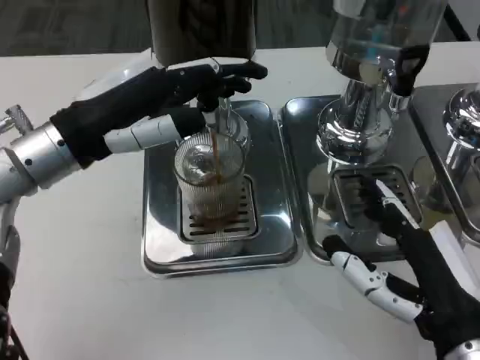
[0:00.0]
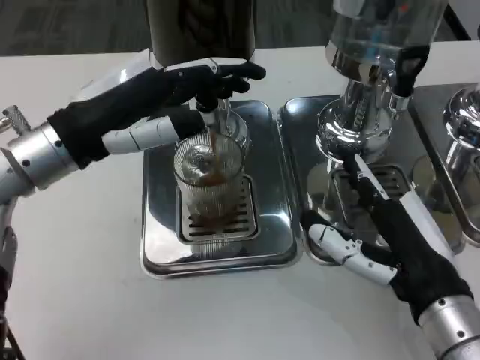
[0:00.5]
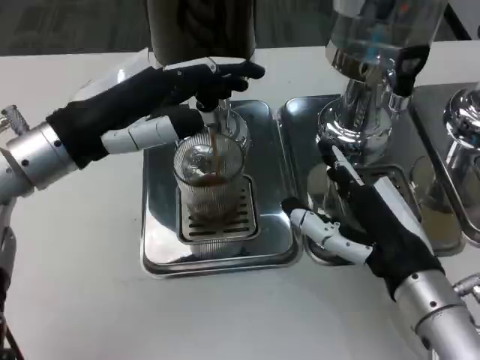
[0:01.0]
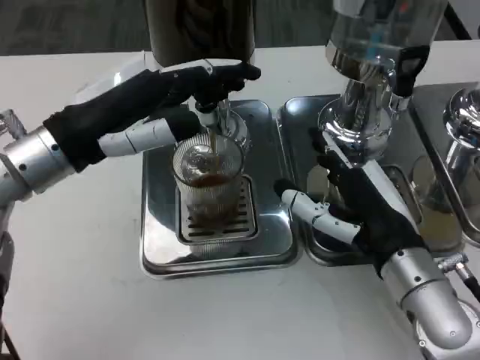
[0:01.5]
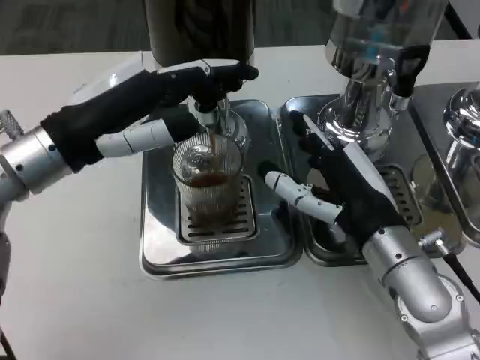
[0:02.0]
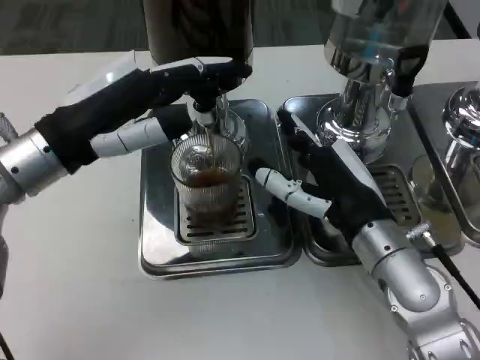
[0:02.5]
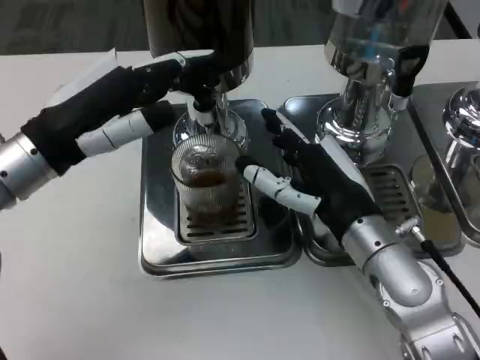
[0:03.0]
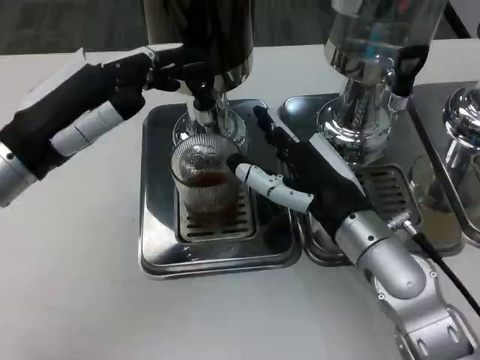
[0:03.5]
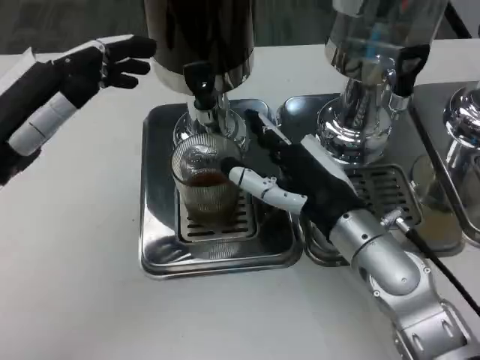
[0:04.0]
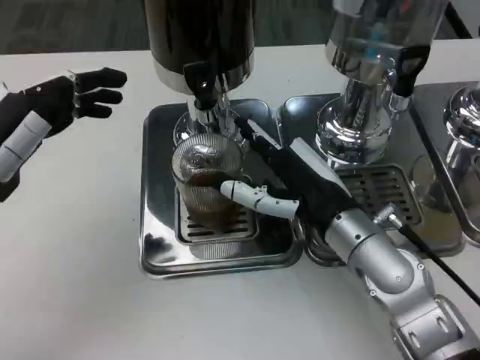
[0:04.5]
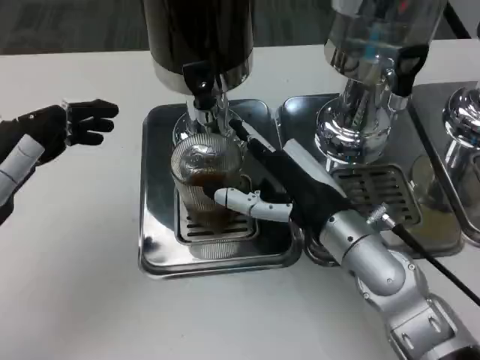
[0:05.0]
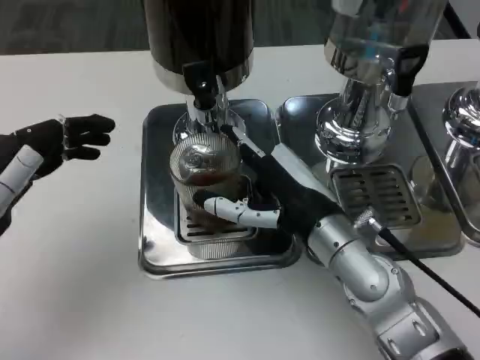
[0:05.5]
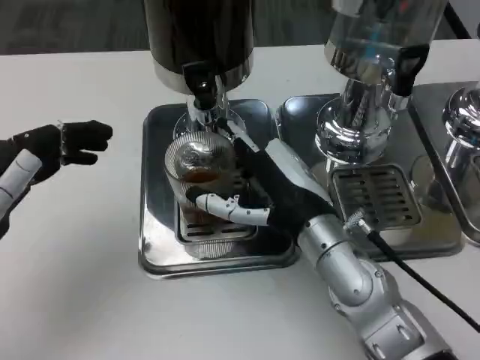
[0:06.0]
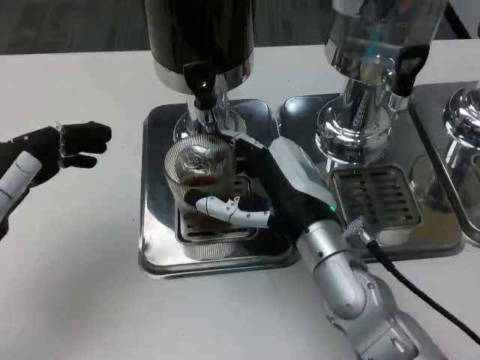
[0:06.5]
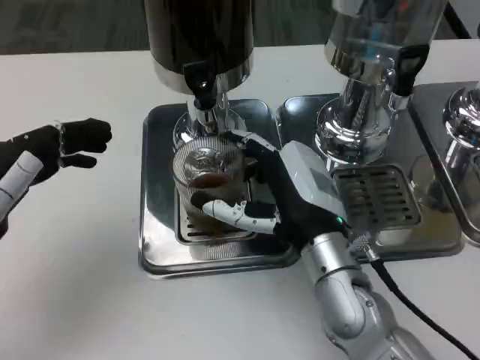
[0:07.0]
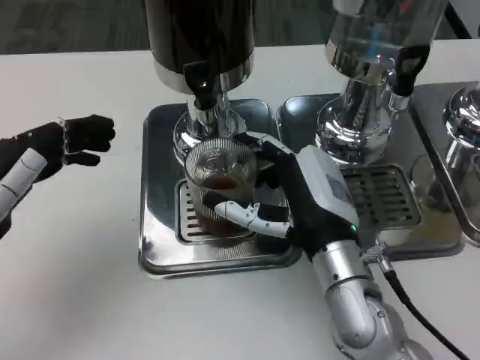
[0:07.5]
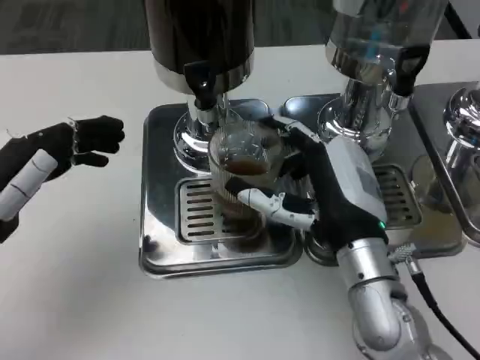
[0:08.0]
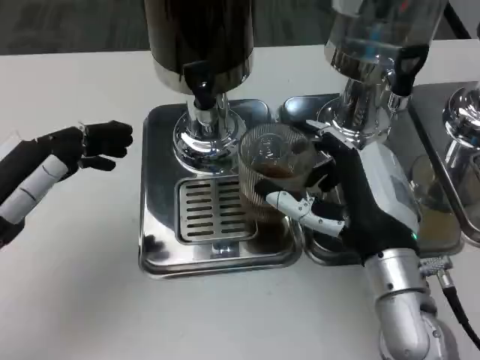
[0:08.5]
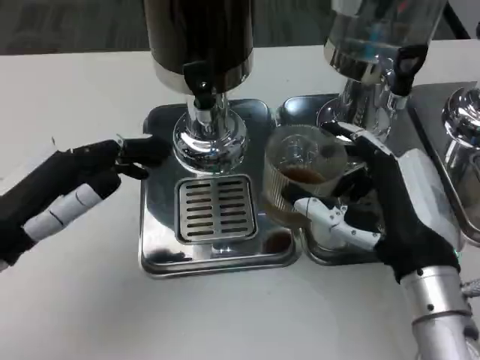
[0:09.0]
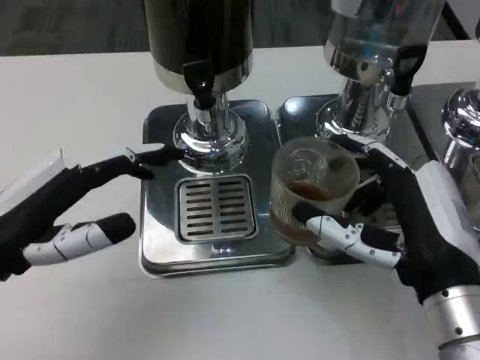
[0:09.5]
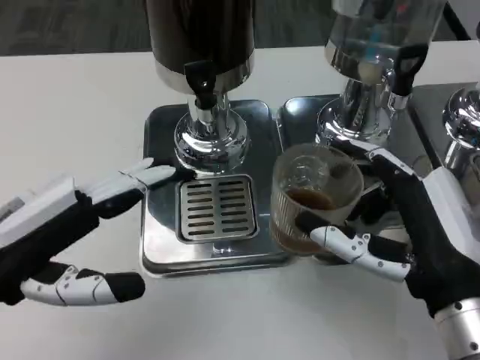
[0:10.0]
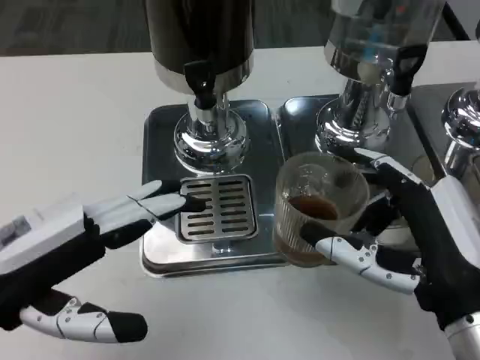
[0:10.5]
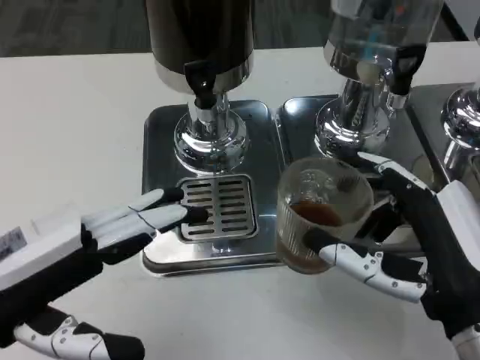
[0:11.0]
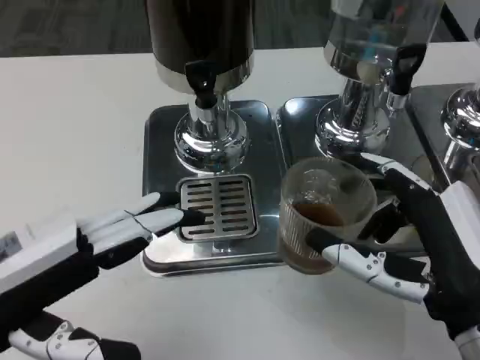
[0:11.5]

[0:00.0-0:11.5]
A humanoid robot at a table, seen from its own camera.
Task of the whole recording: Grasp the cup under the faucet to collect the drink, then remove the cup.
0:00.0 to 0:02.0: The right hand moves forward, some 10 cm.
0:02.0 to 0:04.0: The left hand moves to the left, approximately 5 cm.
0:04.0 to 0:06.0: The left hand ends up roughly 5 cm from where it was.
0:06.0 to 0:07.5: The hands make only small movements.
0:07.5 to 0:09.5: The right hand is displaced backward and to the right by roughly 10 cm.

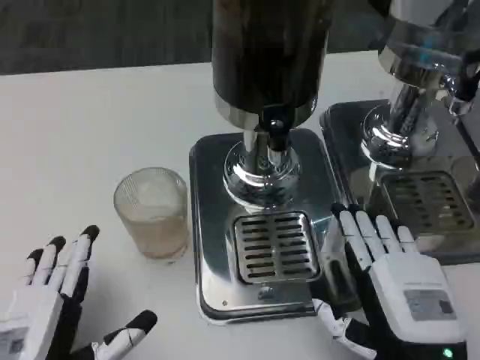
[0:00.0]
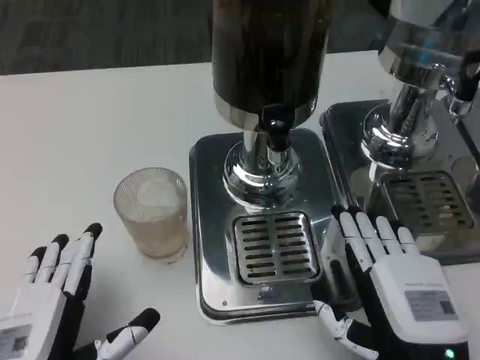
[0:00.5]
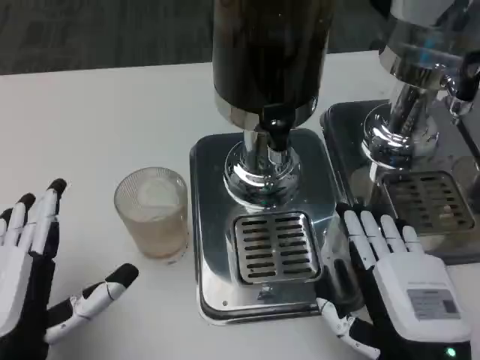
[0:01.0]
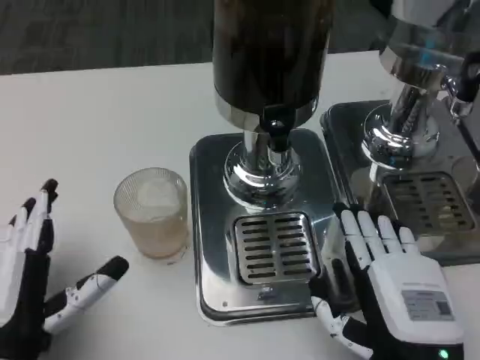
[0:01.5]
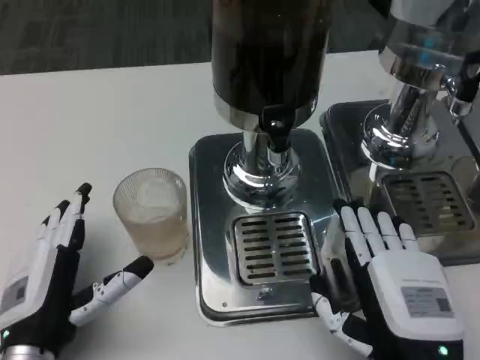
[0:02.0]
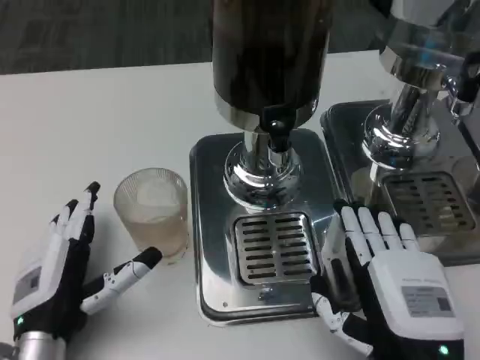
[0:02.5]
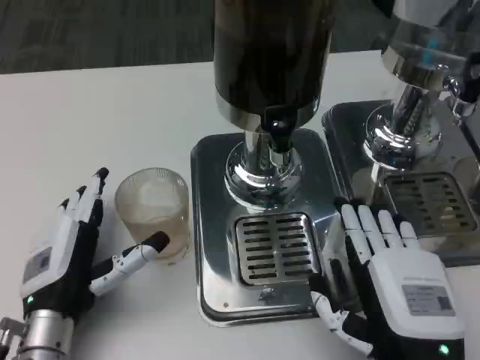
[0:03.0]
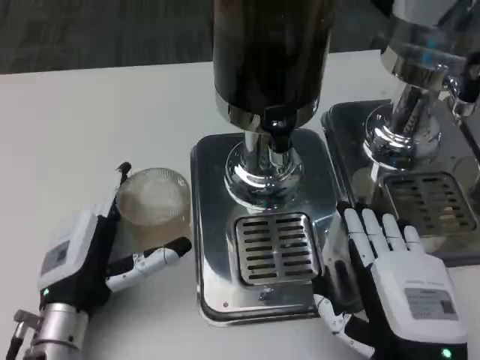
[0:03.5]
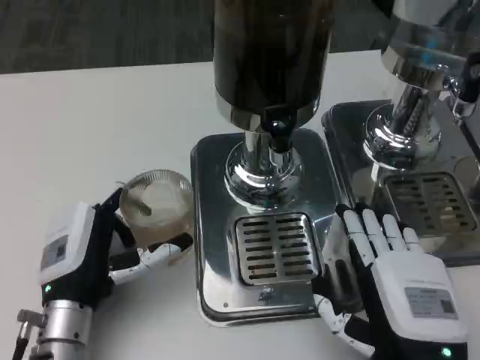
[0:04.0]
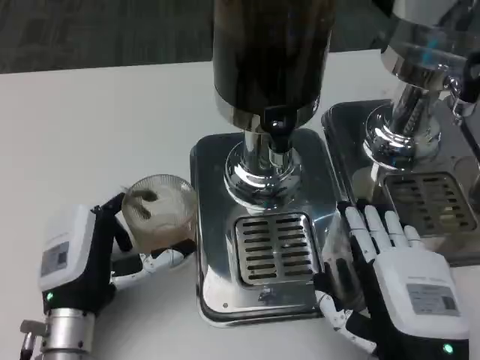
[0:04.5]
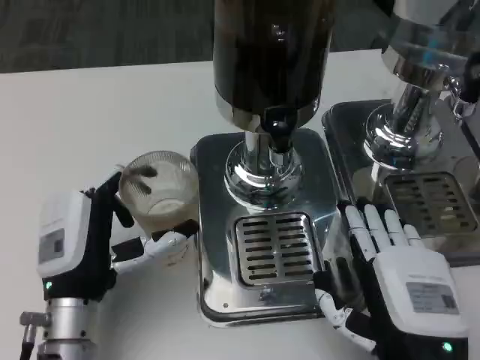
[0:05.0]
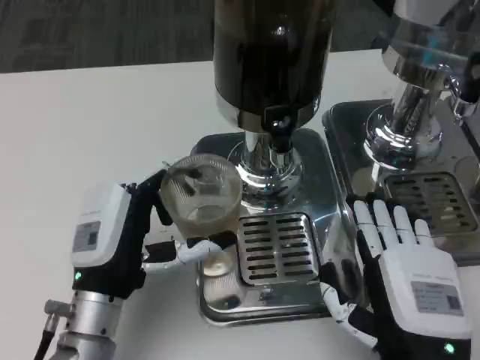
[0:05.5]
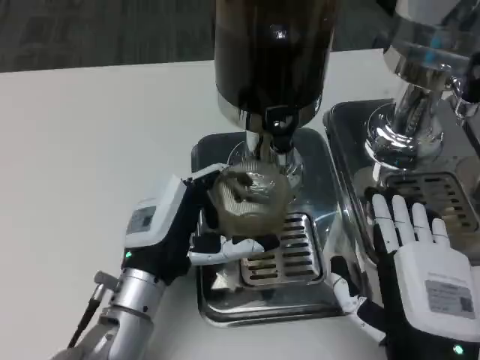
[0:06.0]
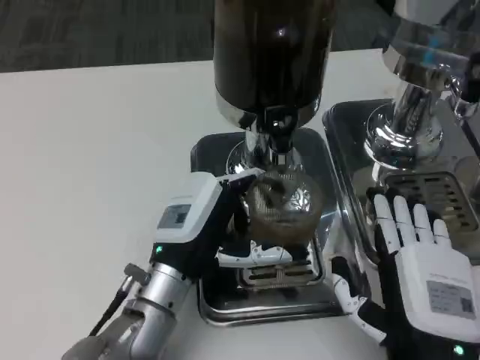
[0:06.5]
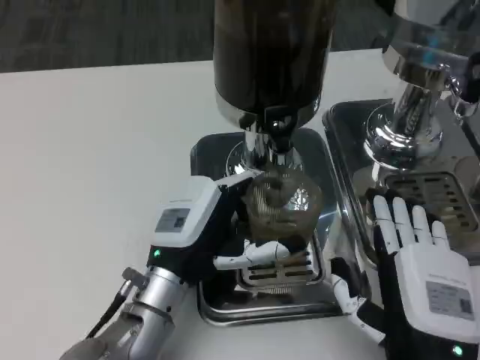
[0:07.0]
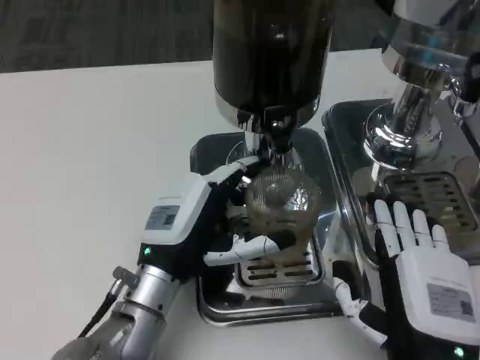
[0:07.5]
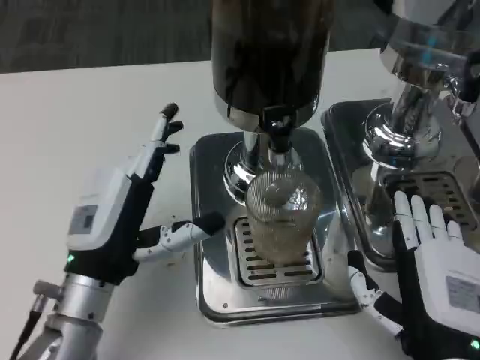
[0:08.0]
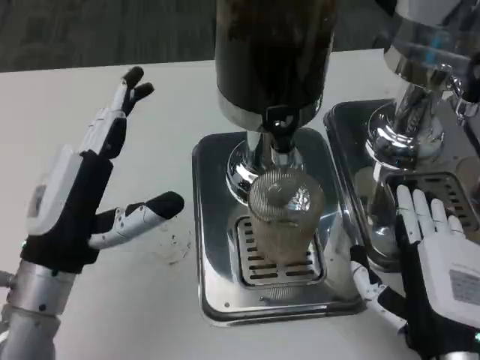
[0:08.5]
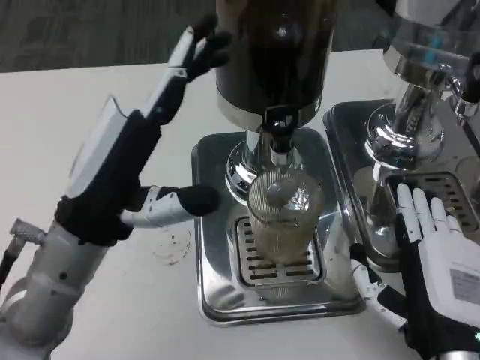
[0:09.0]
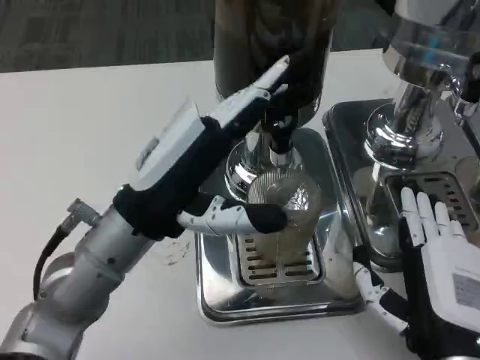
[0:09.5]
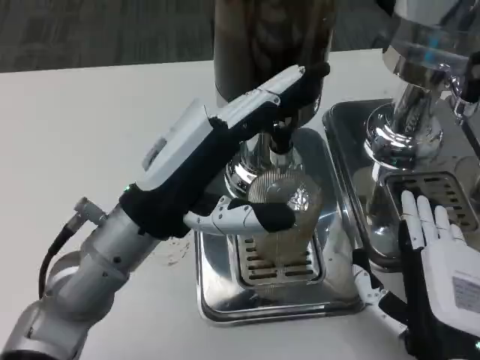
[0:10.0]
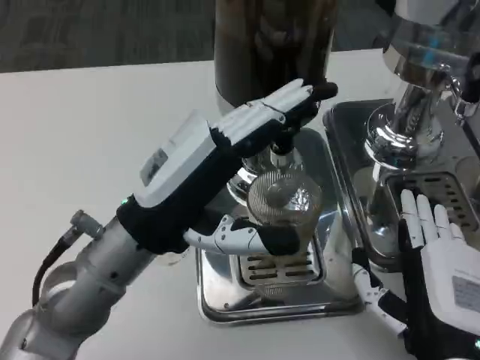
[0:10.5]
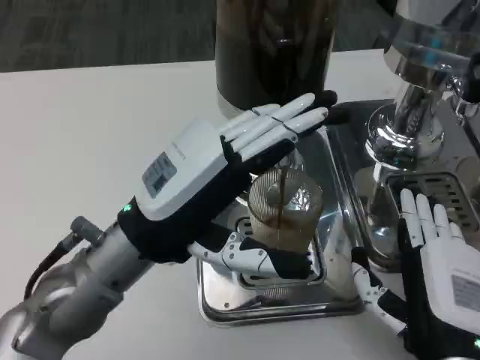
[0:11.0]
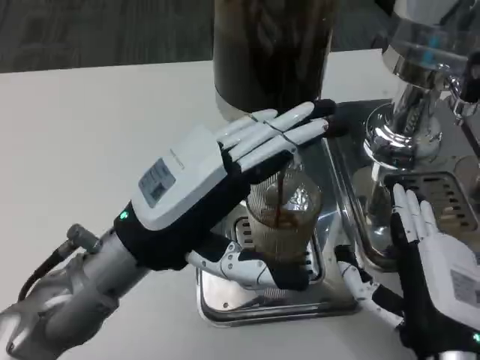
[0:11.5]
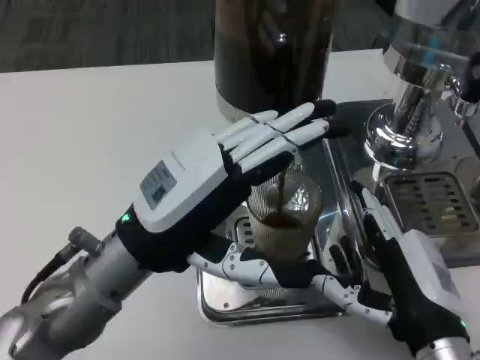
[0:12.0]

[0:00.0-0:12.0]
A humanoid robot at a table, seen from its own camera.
Task of the whole recording: Grasp the cup under the faucet to collect the drink, then remove the cup.
0:00.0 to 0:02.0: The left hand heads forward, covering approximately 5 cm.
0:02.0 to 0:04.0: The left hand shifts by about 5 cm.
0:04.0 to 0:06.0: The left hand travels to the right by approximately 5 cm.
0:06.0 to 0:08.0: The left hand shifts by about 5 cm.
0:08.0 to 0:10.0: The left hand is displaced upward by roughly 10 cm.

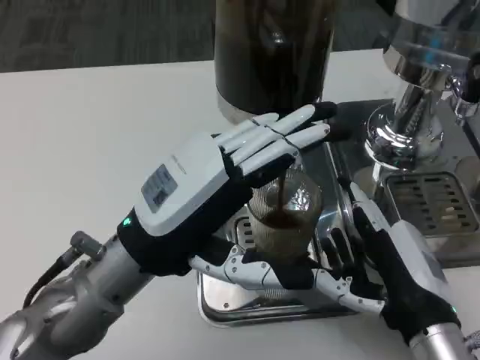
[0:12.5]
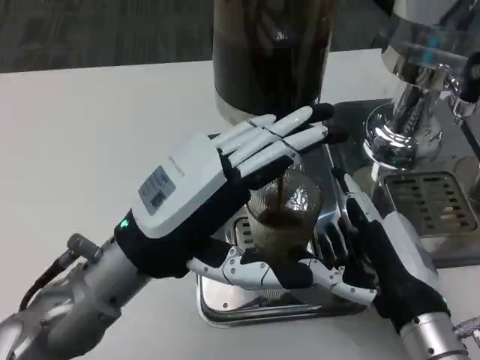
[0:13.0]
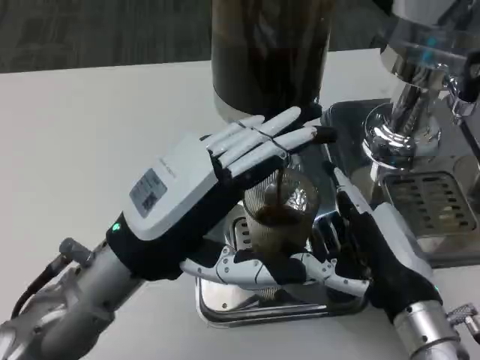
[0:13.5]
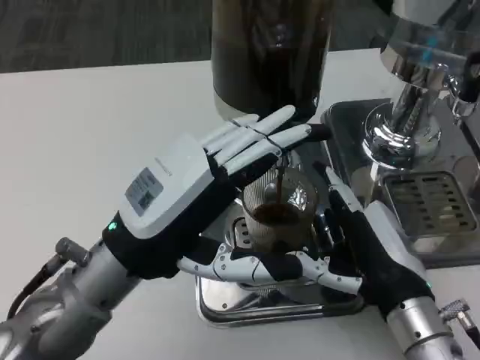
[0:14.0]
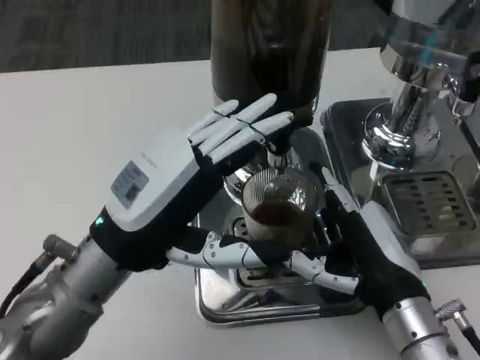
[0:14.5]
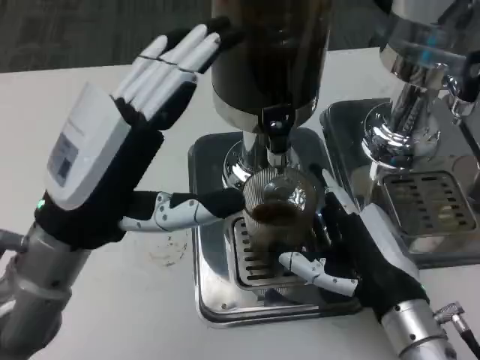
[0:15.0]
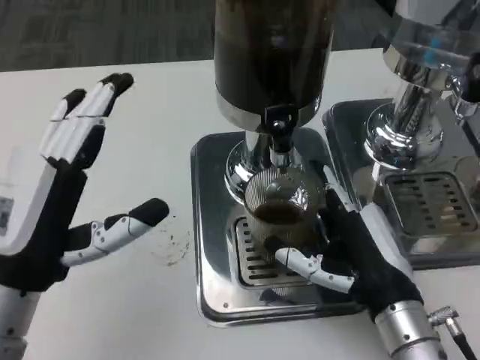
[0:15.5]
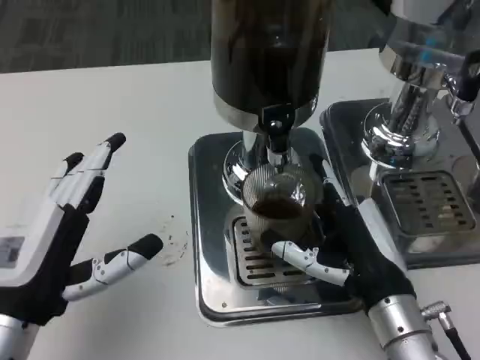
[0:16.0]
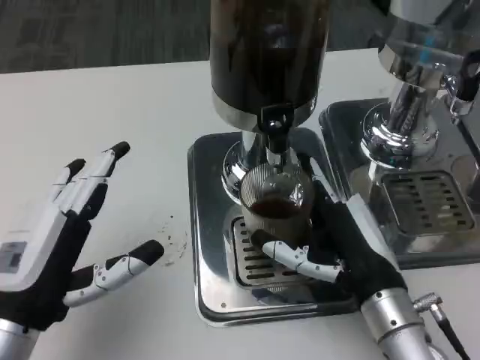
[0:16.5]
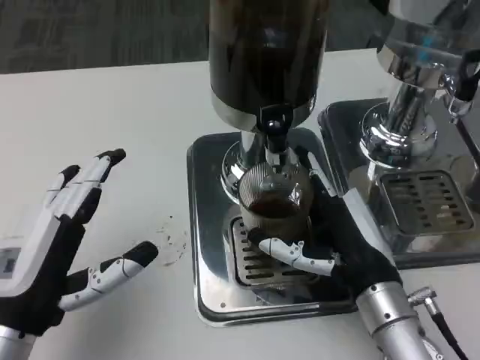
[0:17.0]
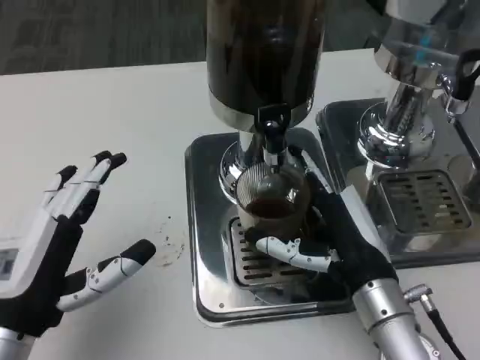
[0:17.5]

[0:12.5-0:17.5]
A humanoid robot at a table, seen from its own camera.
Task of the whole recording: Grasp the cup under the faucet to collect the drink, then remove the cup.
0:15.0 to 0:17.5: The left hand travels downward, backward and to the left by roughly 10 cm.
